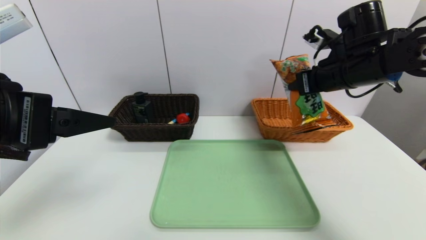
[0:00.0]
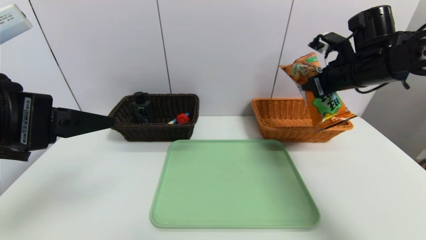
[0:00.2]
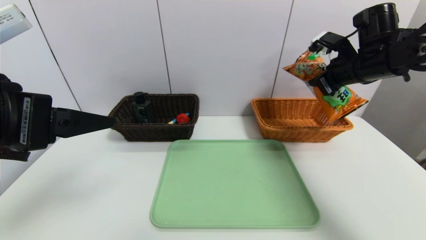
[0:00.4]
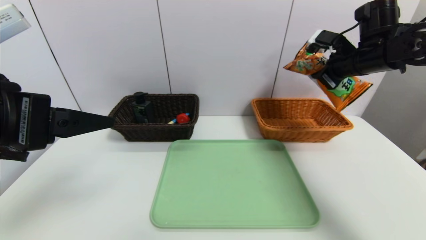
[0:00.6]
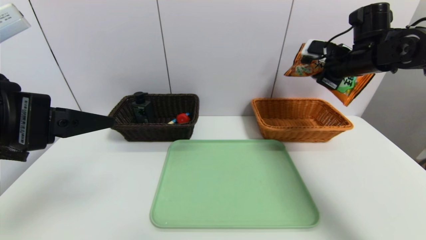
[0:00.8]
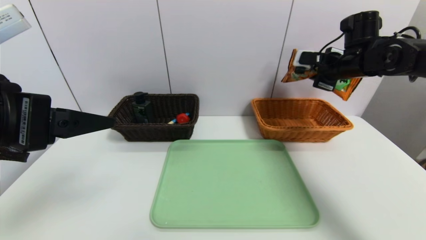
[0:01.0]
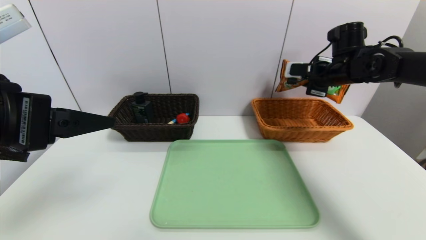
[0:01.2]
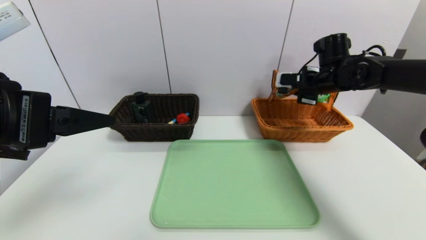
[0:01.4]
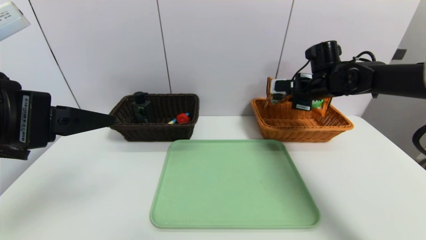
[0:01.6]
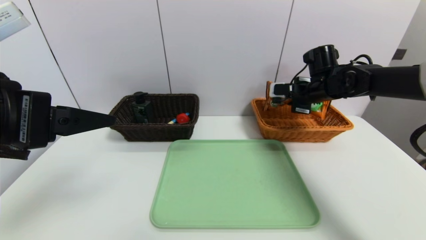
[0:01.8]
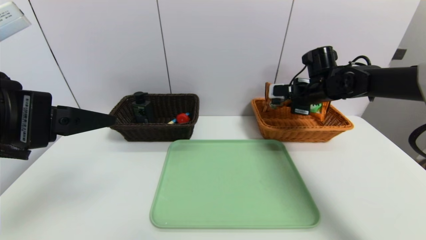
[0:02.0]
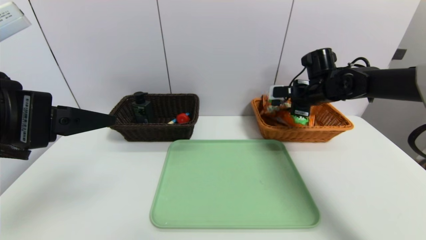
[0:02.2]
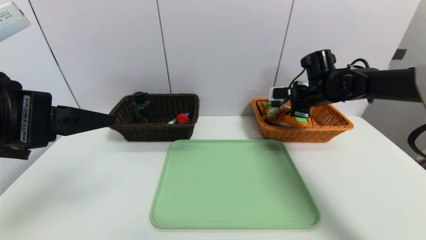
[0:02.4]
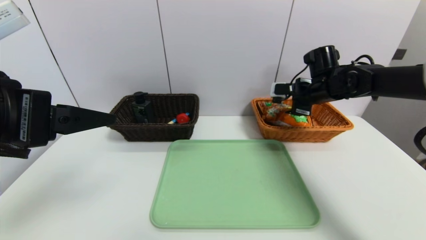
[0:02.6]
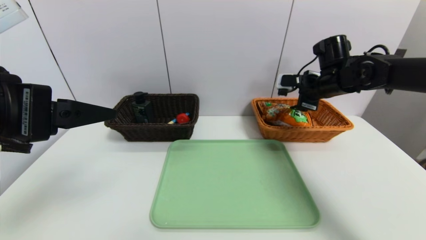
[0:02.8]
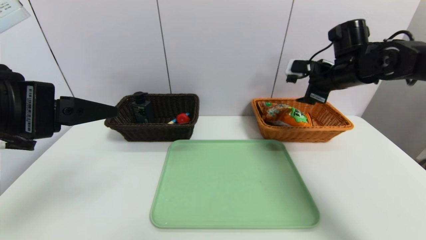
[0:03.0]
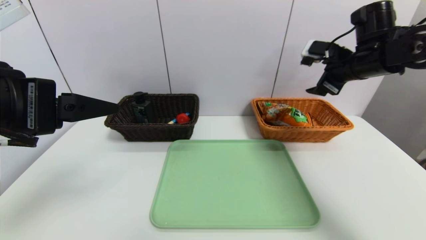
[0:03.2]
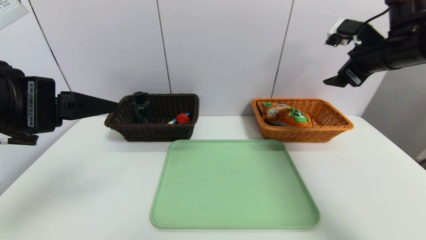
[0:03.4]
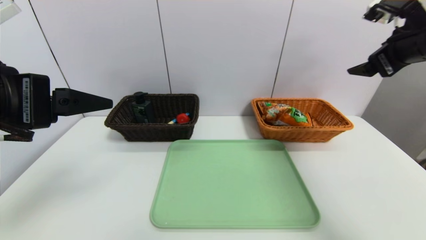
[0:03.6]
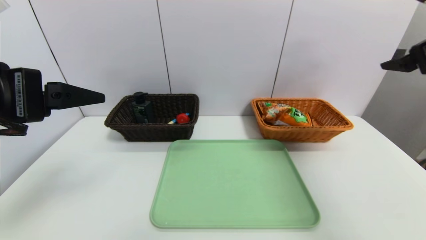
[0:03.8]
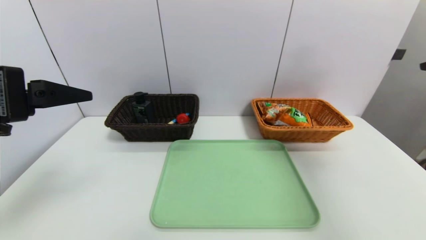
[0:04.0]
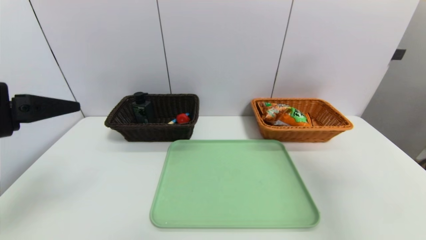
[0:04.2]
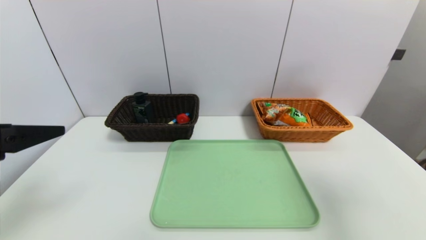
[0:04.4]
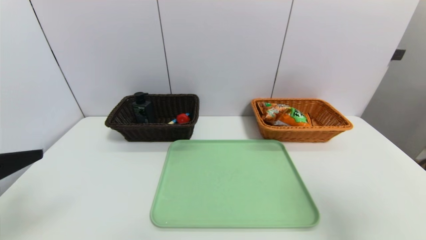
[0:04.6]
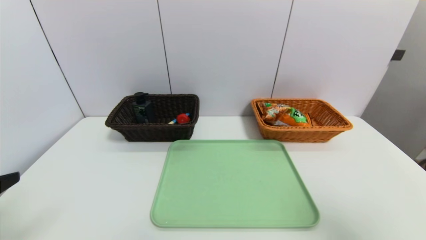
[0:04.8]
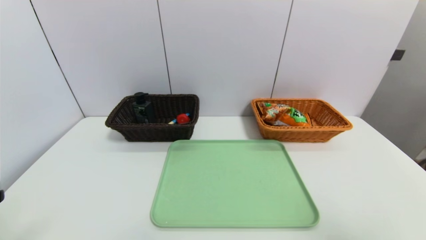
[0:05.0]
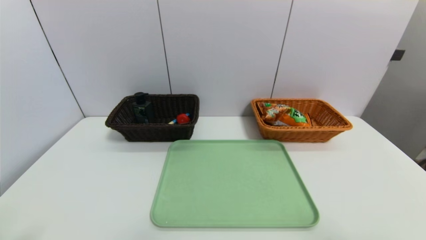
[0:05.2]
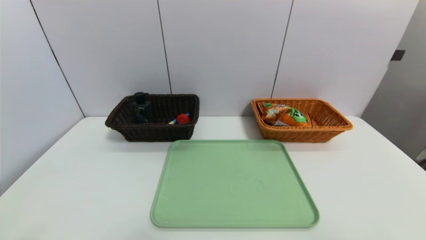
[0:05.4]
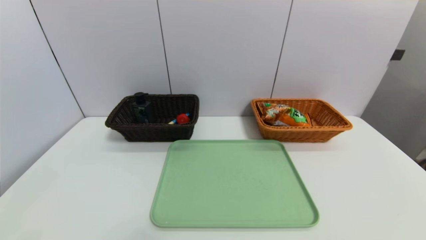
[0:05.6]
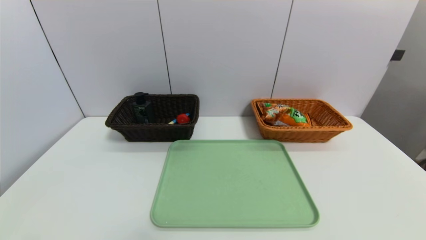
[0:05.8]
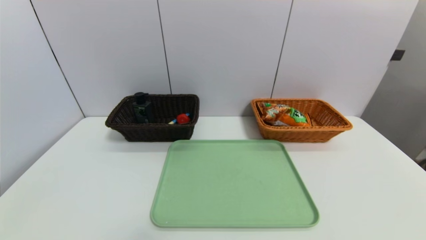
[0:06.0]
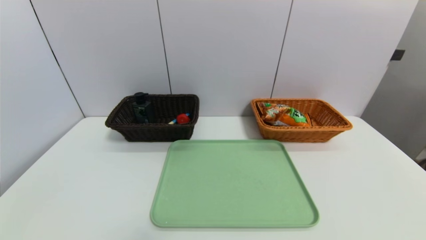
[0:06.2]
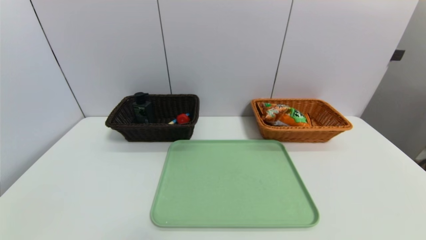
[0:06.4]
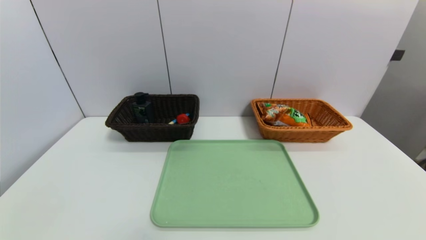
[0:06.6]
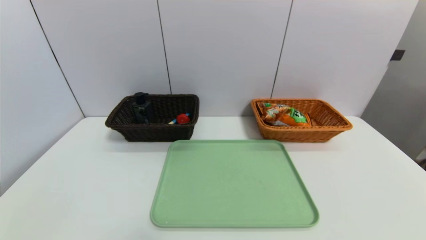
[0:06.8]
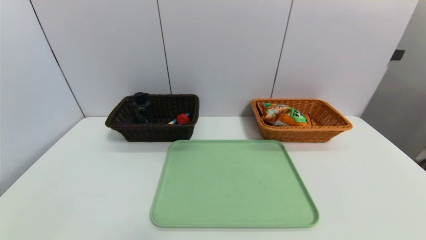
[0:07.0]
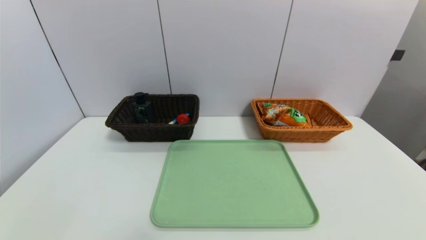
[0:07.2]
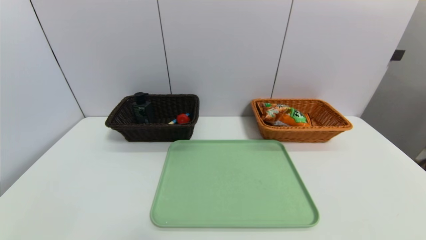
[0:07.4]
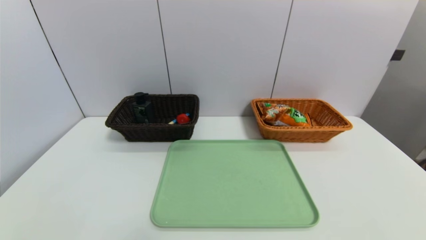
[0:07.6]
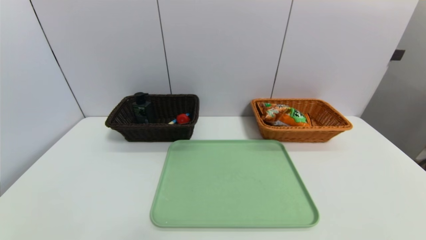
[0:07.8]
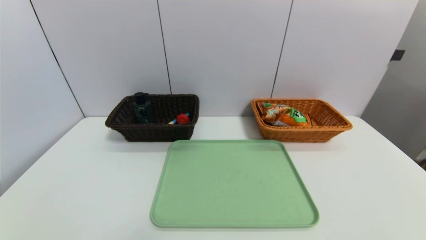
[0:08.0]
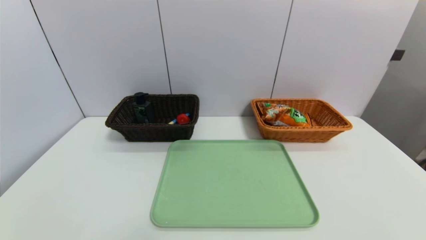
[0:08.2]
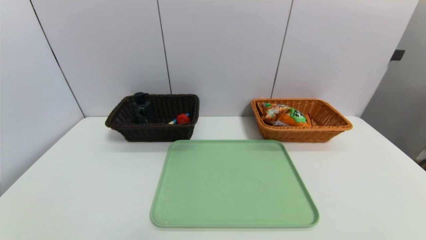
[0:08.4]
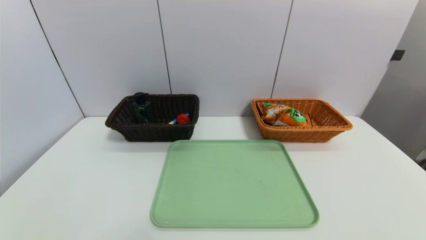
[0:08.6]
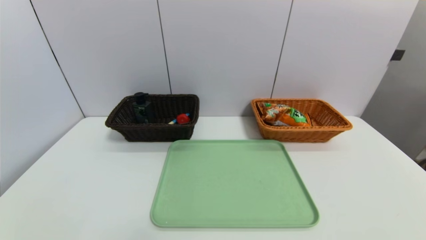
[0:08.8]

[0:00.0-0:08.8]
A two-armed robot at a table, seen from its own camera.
Task of the whole recording: place the food in the right basket with the right gripper, and place the non food items in the left basket with the left gripper.
Step, 0:00.0 to 0:02.4: Grasp the cookie and put it in the right basket.
0:00.0 to 0:01.4: The right gripper shifts about 10 cm forward and downward.
0:01.4 to 0:03.0: The right gripper shifts by approximately 5 cm, and opens its fingers.
0:03.0 to 0:04.4: The right gripper is displaced backward by about 30 cm, while the left gripper moves roughly 5 cm.
0:04.4 to 0:05.8: Both grippers move backward and downward, roughly 15 cm.

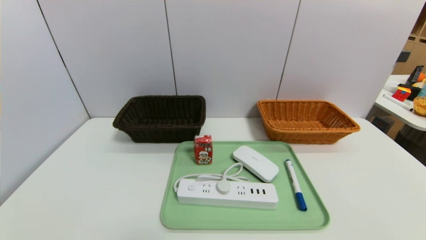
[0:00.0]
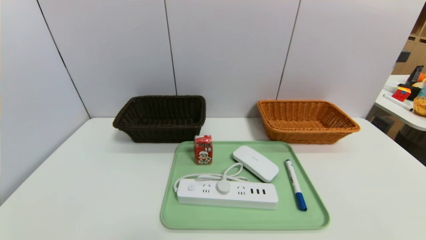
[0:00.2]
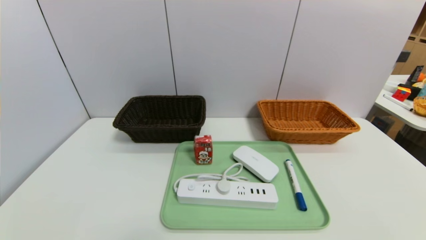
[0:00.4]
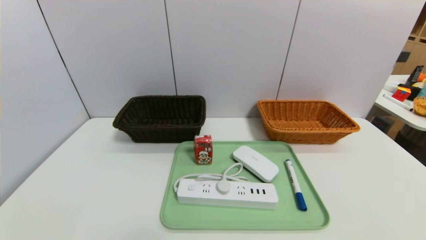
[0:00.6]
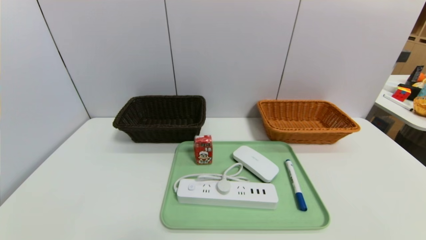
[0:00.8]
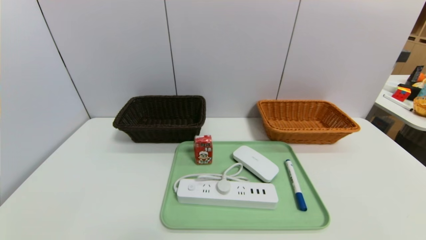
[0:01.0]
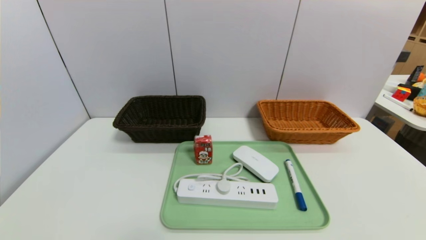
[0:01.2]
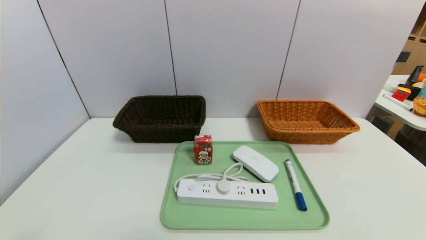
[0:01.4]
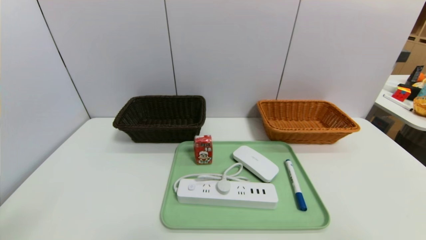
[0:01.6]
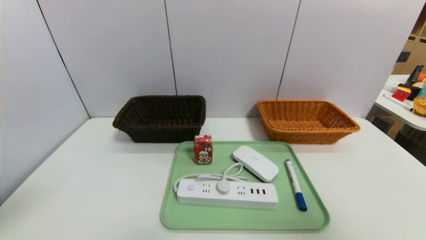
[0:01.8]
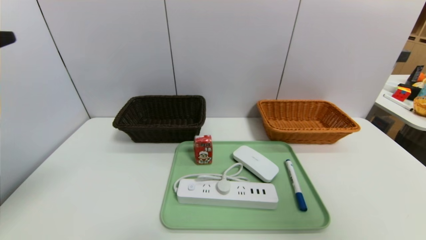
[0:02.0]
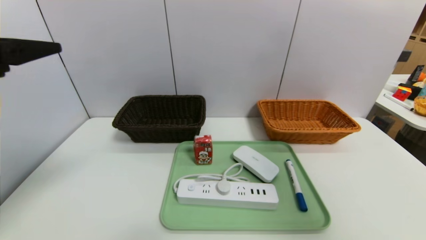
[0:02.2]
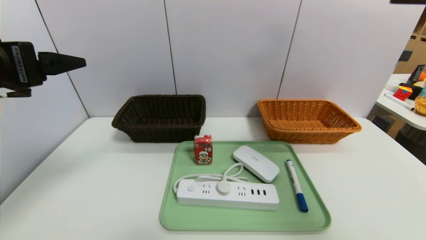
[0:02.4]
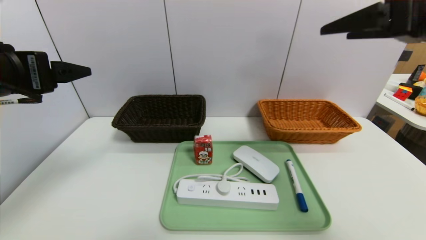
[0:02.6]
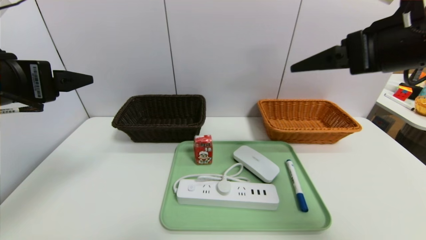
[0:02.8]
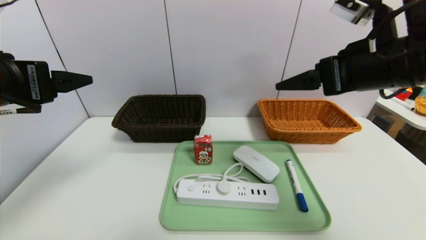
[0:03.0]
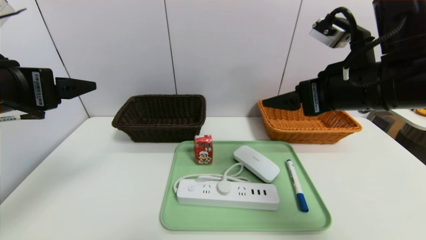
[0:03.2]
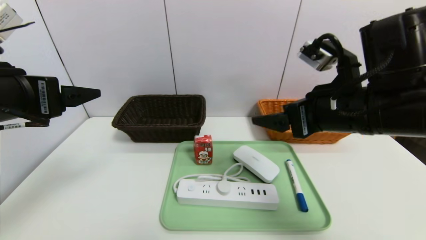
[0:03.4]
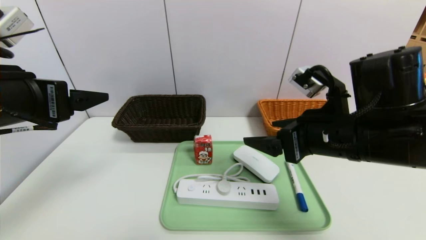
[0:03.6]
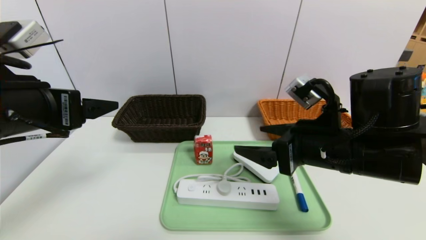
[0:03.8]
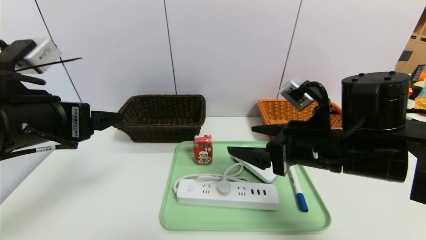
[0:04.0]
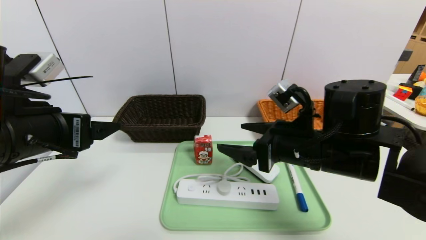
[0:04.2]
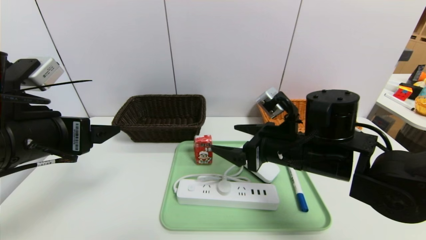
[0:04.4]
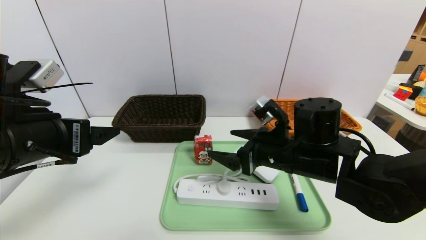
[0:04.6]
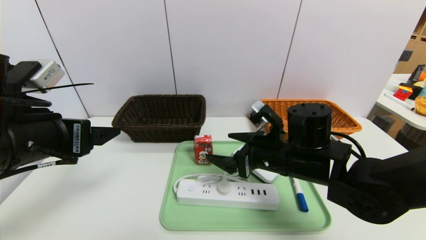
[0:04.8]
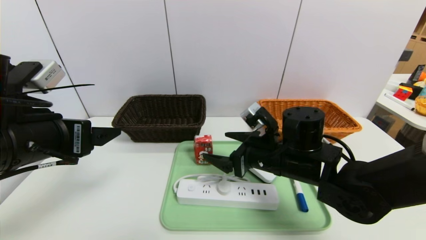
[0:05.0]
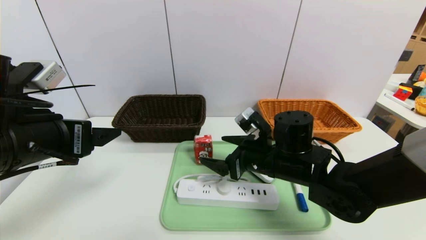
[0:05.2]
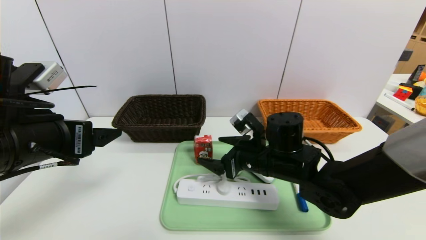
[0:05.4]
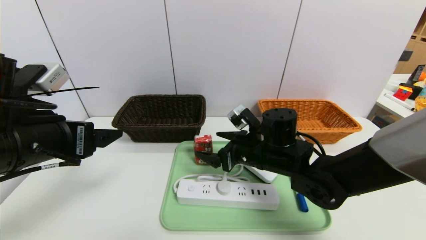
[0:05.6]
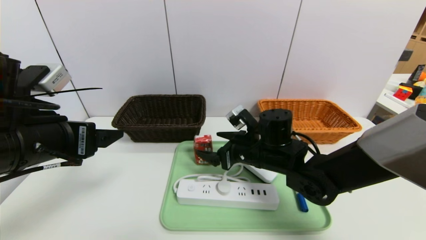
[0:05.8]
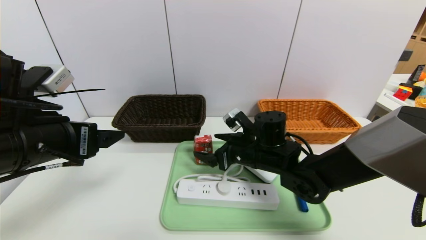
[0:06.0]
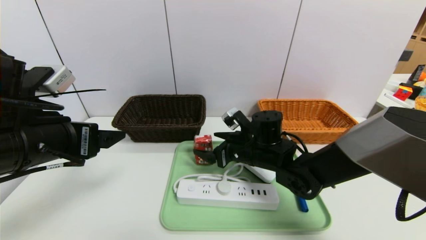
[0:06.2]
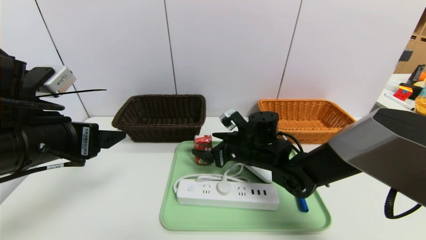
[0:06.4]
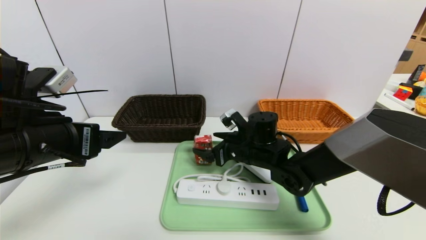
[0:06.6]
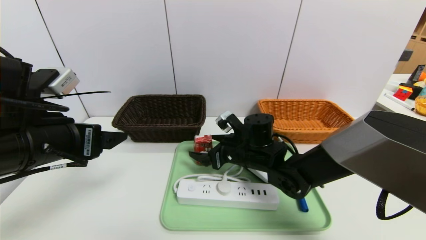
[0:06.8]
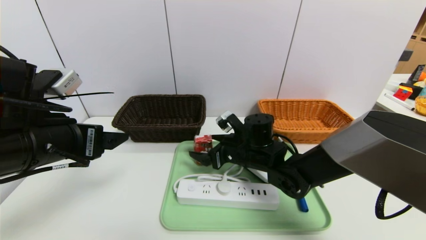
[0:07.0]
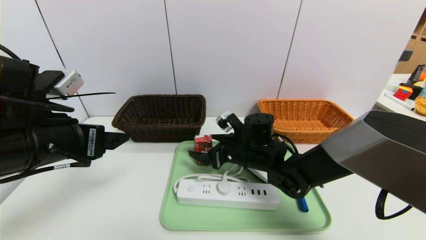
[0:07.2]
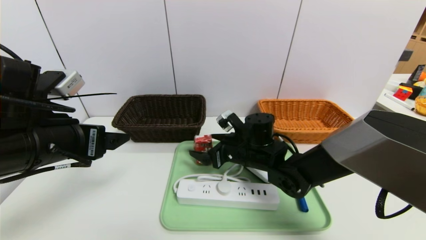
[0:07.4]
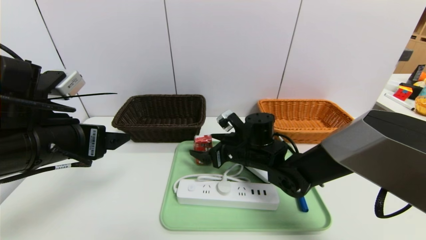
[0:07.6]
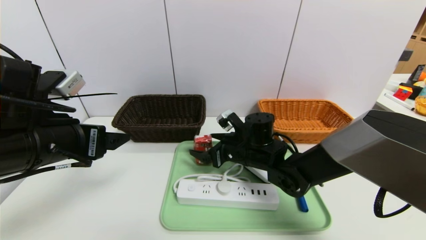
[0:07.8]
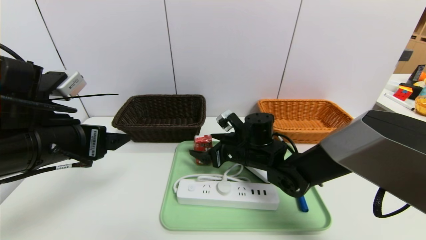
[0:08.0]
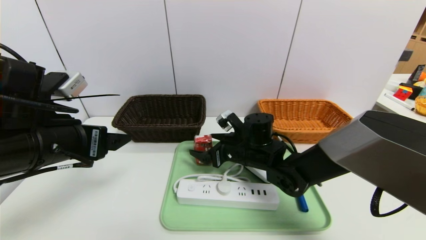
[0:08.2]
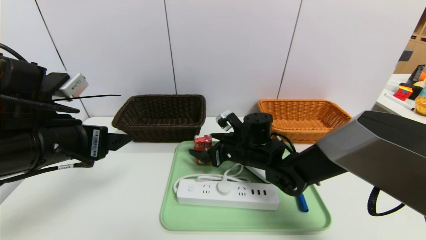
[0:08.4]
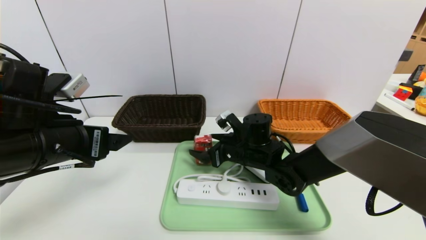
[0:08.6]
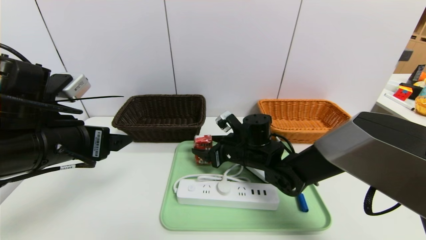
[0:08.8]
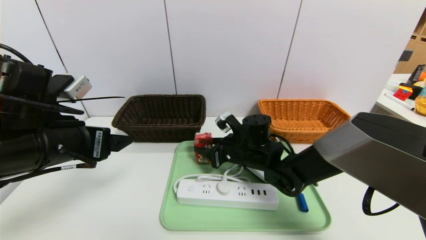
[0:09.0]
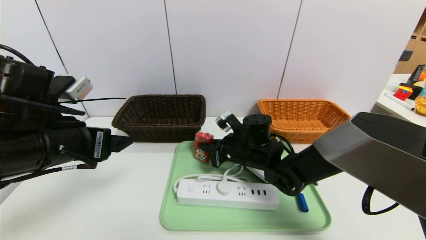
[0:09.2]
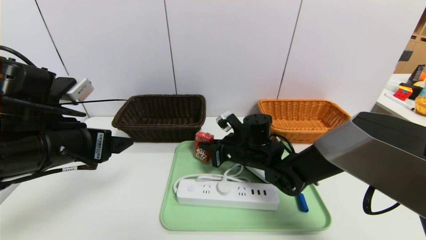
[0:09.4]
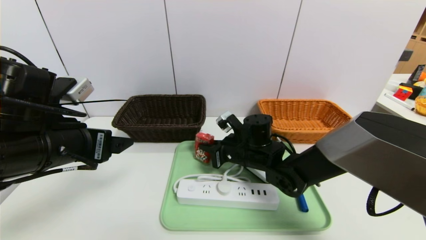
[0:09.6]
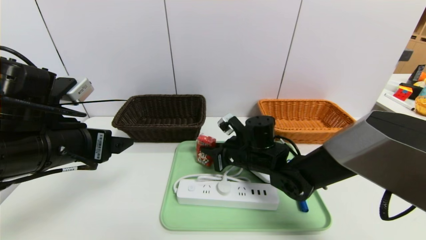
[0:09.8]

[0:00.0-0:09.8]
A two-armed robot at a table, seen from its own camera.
Task of the whole recording: place the food in the right basket with the right gripper, and place the non food items in the left basket with the left gripper.
0:01.4 to 0:02.8: Both grippers travel together forward and upward, some 25 cm.
0:02.8 to 0:04.2: The right gripper shifts about 20 cm downward and to the left; the left gripper moves downward, roughly 5 cm.
0:04.2 to 0:05.6: The right gripper heads downward and forward, covering roughly 10 cm.
0:05.6 to 0:07.0: The right gripper moves about 5 cm.
0:07.0 to 0:08.4: Both grippers stay about where they are.
0:08.4 to 0:09.8: The right gripper closes.
